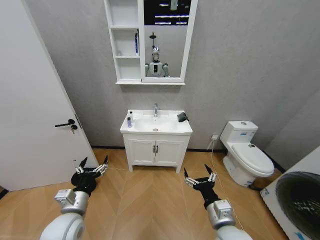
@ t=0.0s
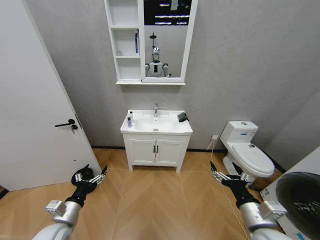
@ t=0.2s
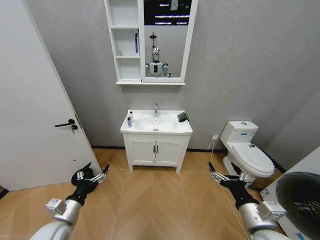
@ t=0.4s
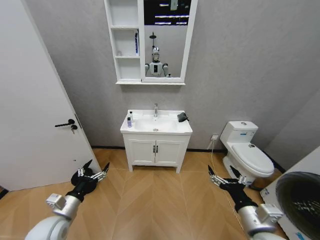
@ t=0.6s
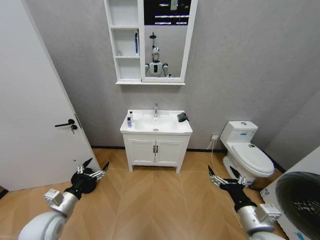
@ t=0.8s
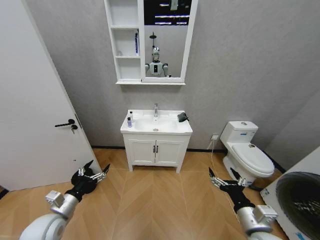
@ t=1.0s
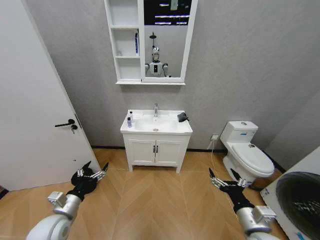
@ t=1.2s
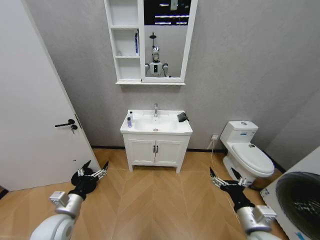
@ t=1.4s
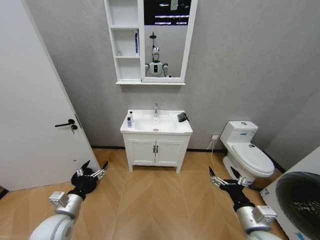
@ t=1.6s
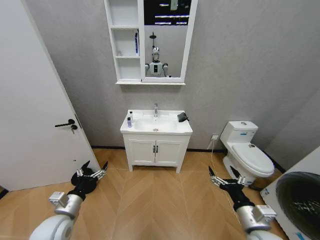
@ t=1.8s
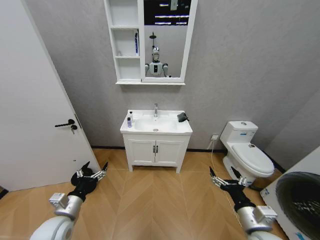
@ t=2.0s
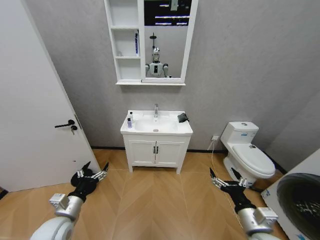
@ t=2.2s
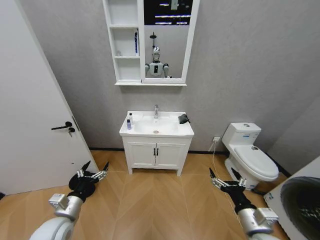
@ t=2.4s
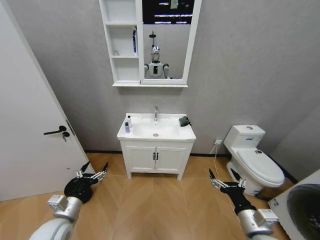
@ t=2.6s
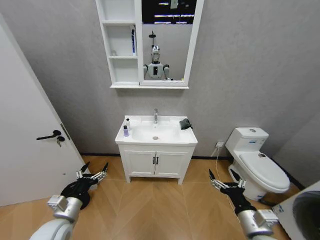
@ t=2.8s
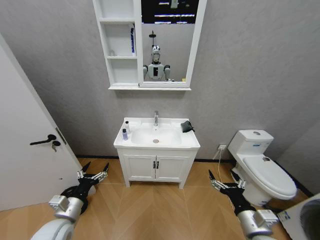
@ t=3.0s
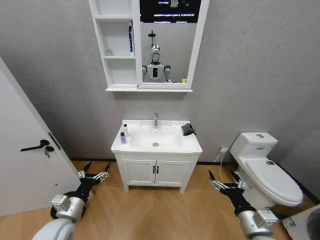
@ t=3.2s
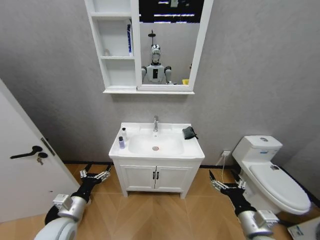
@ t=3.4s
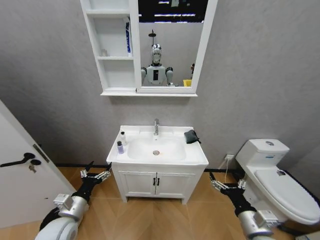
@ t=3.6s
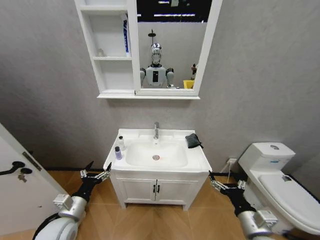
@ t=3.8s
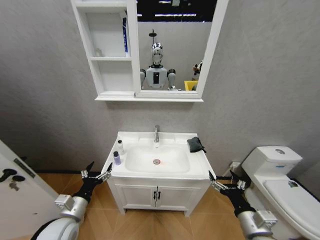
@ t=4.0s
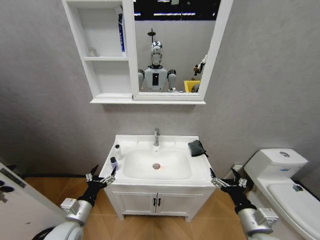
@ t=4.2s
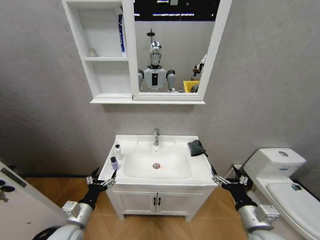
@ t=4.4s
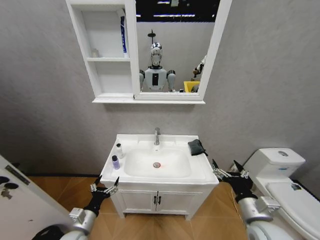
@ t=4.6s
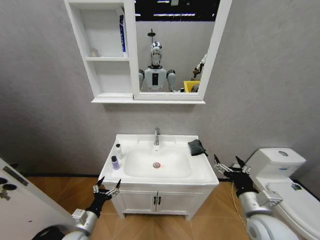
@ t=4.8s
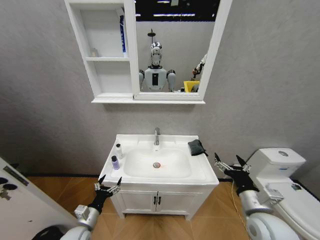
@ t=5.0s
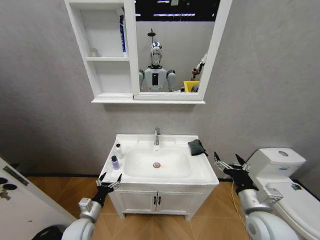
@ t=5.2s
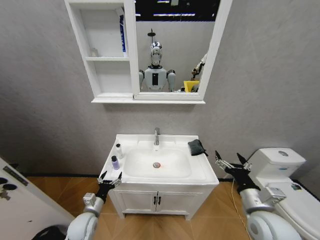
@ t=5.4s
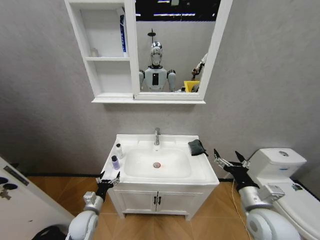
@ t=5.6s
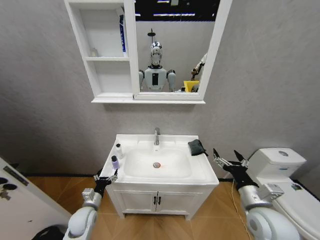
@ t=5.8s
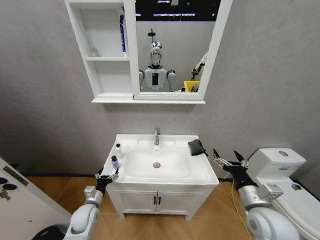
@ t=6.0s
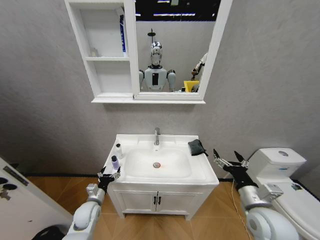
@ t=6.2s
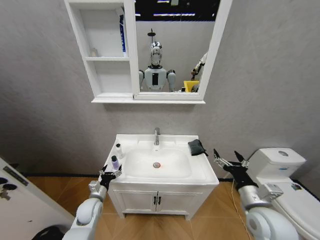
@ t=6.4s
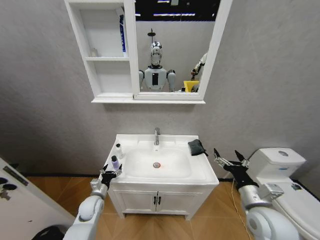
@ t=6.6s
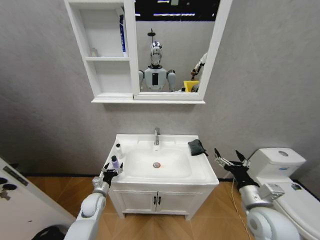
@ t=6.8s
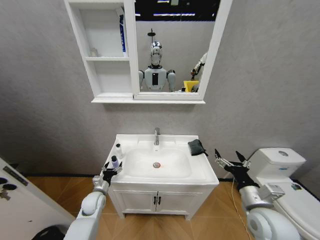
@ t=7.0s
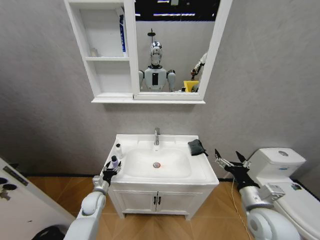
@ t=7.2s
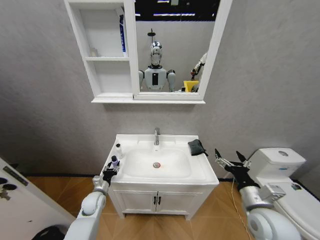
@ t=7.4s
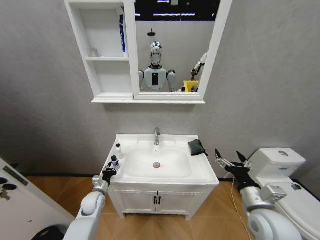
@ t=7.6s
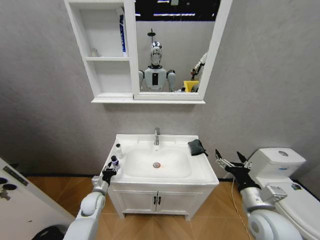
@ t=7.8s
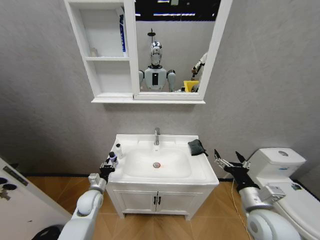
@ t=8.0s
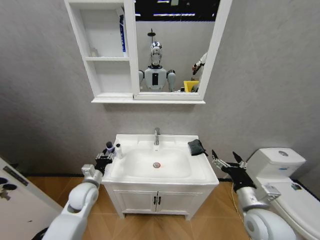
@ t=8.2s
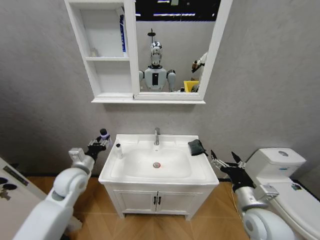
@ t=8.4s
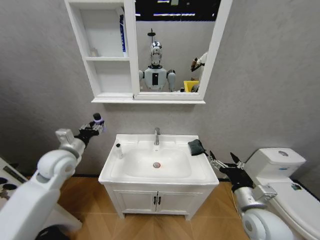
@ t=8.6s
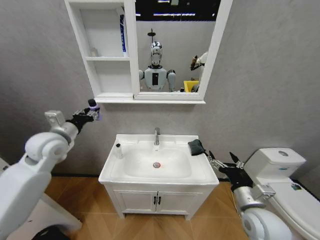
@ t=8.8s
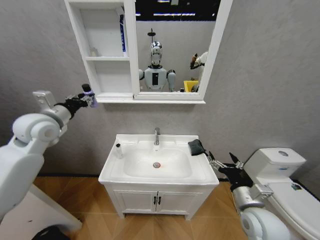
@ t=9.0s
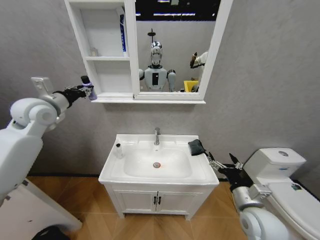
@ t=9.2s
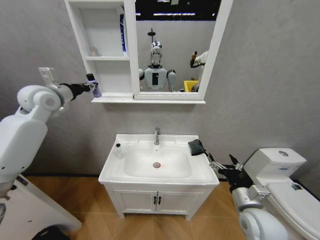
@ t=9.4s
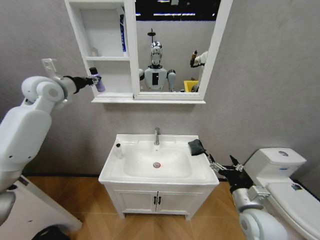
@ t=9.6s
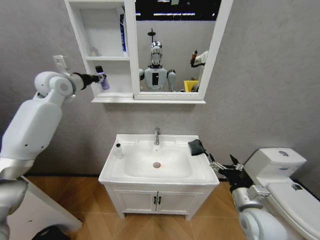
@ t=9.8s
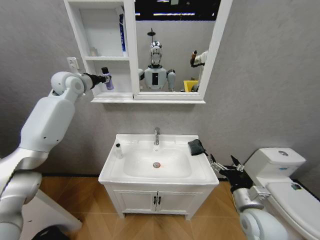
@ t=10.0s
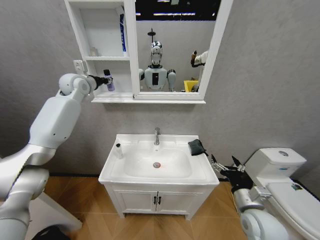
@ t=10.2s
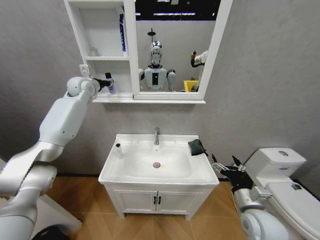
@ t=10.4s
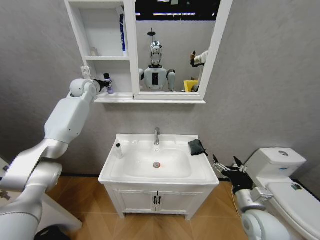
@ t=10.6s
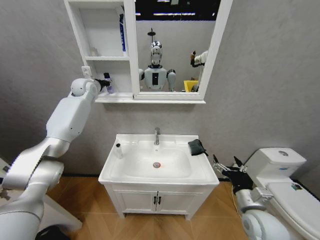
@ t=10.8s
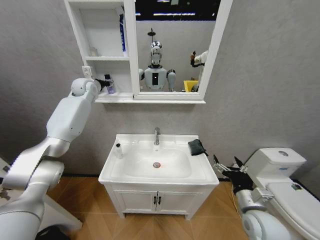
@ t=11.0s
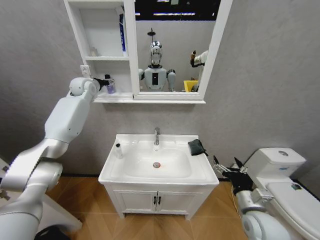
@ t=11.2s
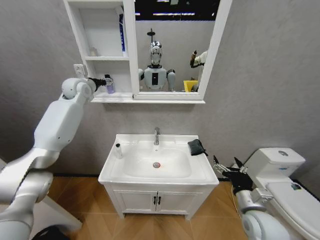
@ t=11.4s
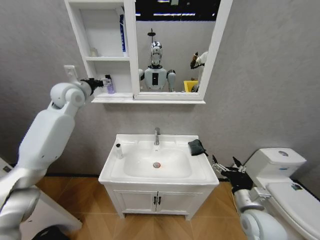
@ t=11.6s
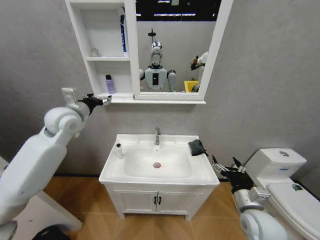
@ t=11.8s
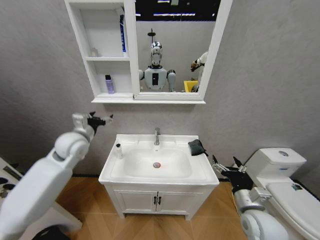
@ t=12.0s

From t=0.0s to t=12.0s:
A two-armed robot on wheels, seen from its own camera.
Task of the whole recording: Move facial cleanser and shampoo from washbasin to cabinet, then wipe washbasin with towel.
From t=4.4s to t=6.0s: The right gripper shifts by about 5 cm. The left gripper shifts approximately 10 cm forward and downward.
From t=6.0s to t=7.6s: The left gripper goes some 5 cm forward, and closes up.
From t=7.6s to t=9.0s: The left gripper heads upward, covering roughly 40 cm.
From t=9.0s to t=10.4s: The left gripper moves forward, some 20 cm.
From t=10.4s to t=12.0s: The left gripper is displaced backward and downward by some 25 cm, and opens.

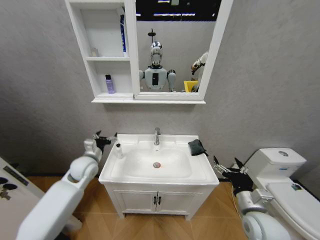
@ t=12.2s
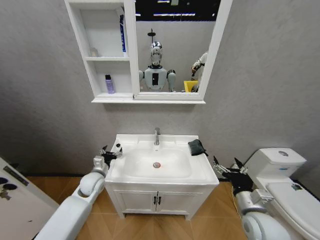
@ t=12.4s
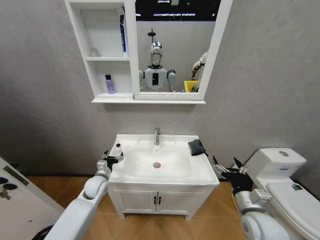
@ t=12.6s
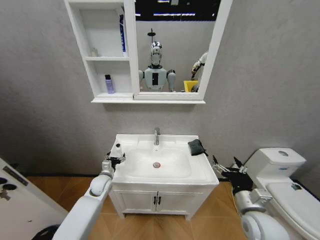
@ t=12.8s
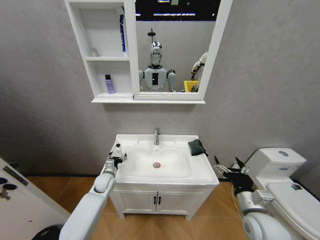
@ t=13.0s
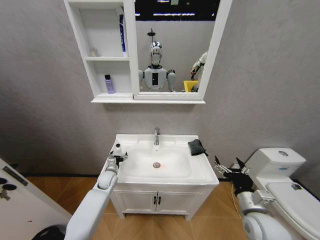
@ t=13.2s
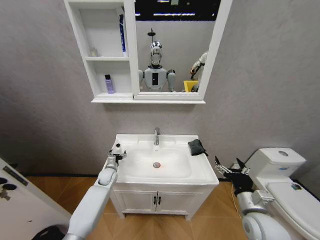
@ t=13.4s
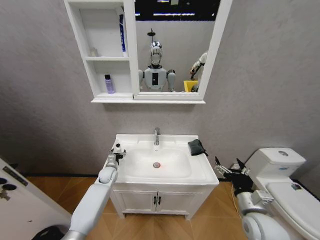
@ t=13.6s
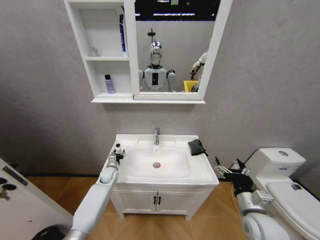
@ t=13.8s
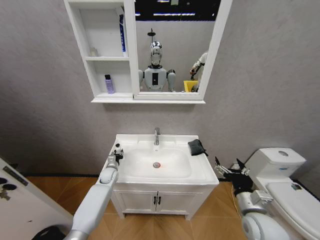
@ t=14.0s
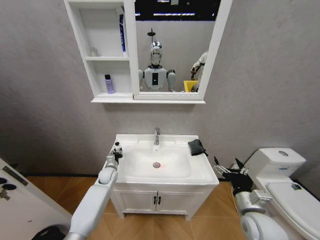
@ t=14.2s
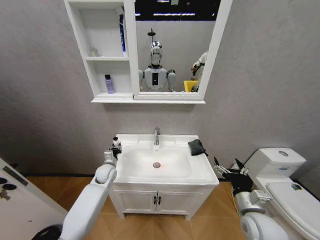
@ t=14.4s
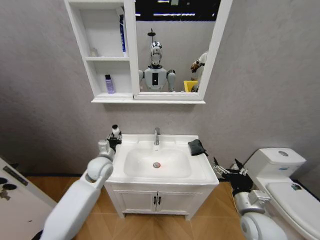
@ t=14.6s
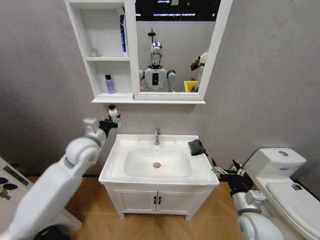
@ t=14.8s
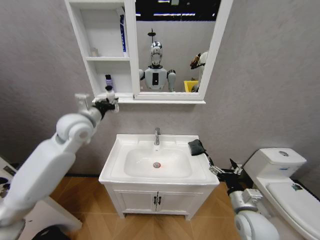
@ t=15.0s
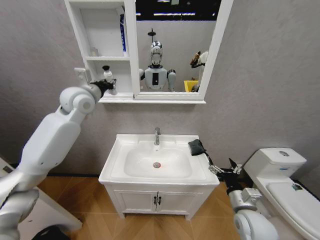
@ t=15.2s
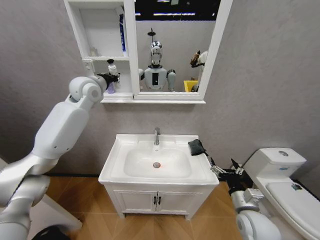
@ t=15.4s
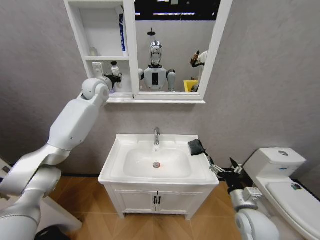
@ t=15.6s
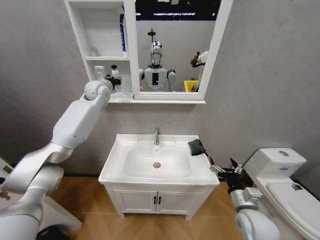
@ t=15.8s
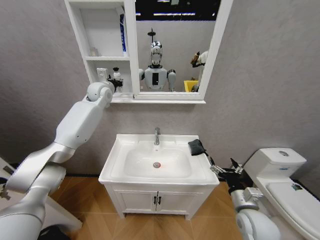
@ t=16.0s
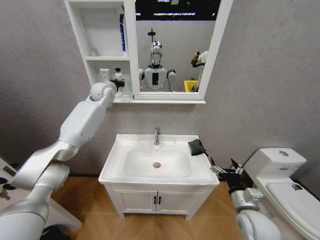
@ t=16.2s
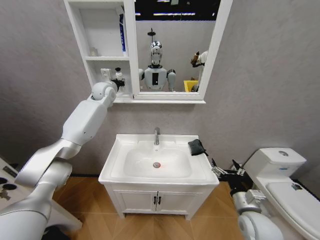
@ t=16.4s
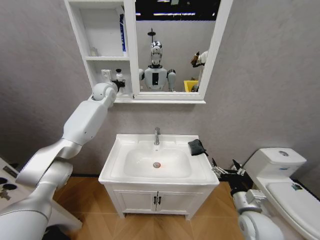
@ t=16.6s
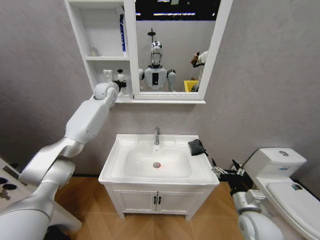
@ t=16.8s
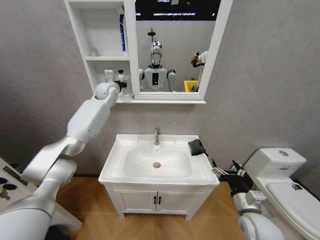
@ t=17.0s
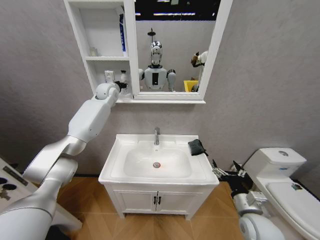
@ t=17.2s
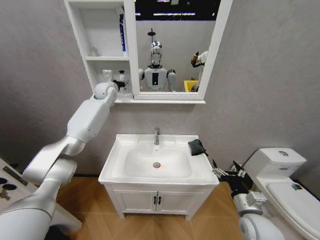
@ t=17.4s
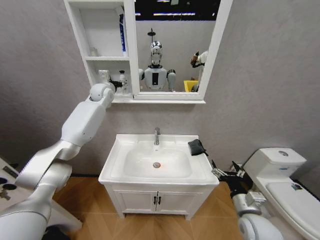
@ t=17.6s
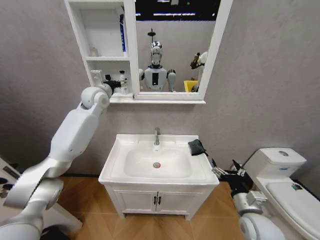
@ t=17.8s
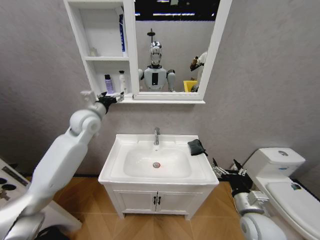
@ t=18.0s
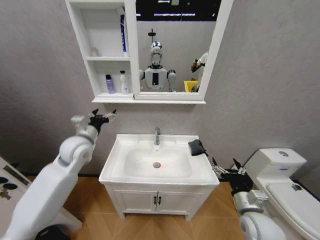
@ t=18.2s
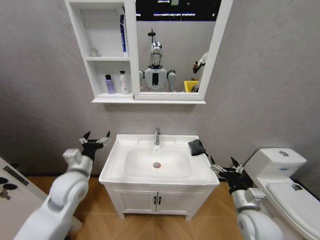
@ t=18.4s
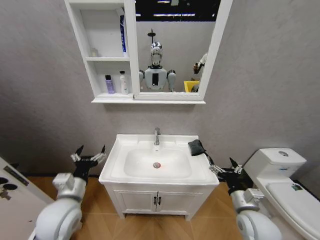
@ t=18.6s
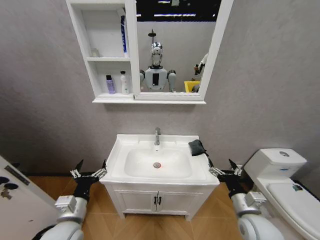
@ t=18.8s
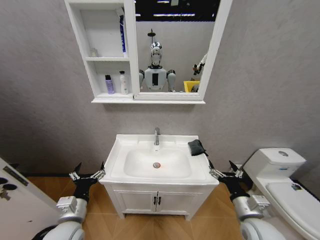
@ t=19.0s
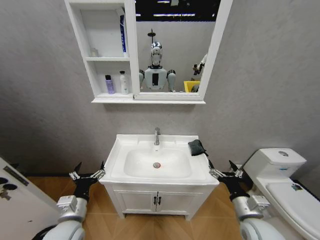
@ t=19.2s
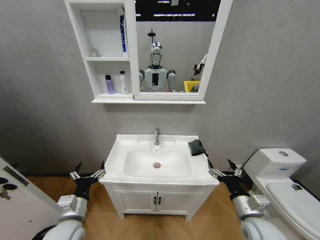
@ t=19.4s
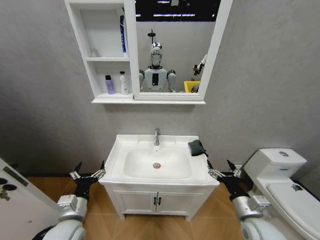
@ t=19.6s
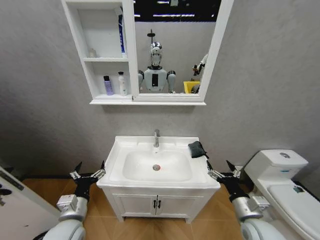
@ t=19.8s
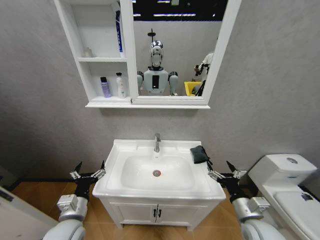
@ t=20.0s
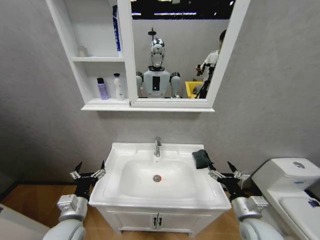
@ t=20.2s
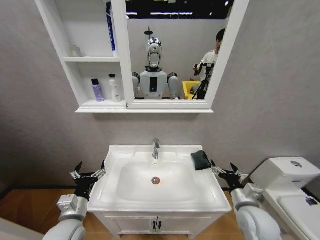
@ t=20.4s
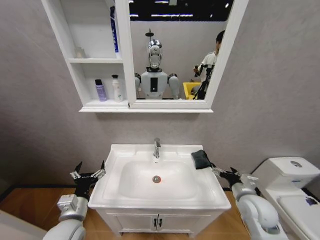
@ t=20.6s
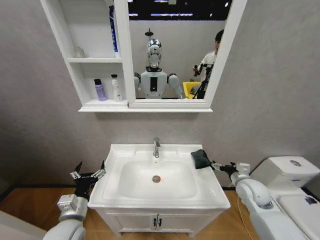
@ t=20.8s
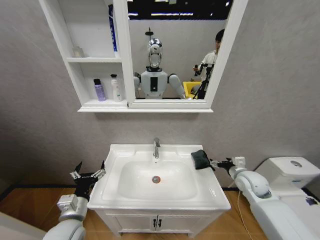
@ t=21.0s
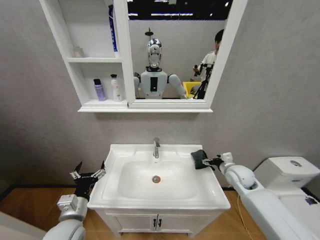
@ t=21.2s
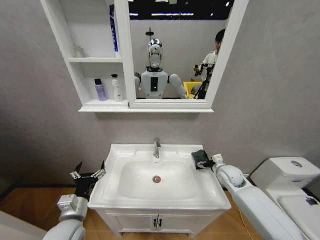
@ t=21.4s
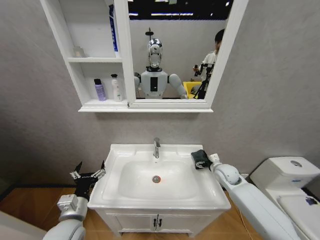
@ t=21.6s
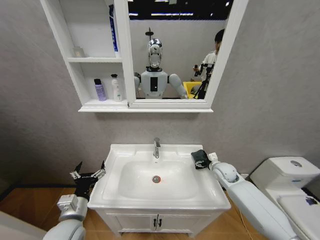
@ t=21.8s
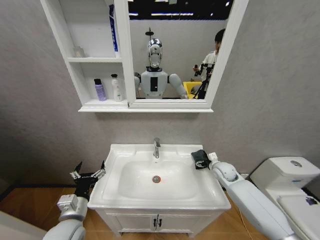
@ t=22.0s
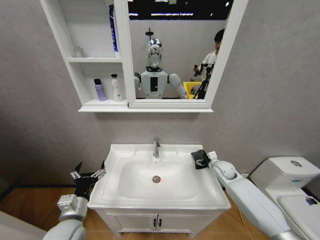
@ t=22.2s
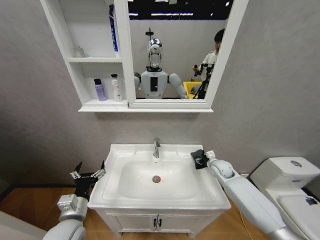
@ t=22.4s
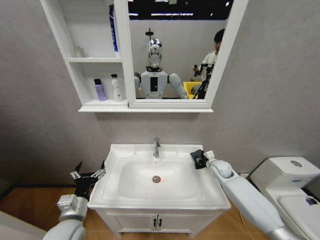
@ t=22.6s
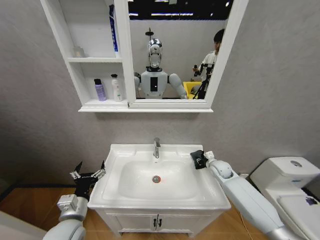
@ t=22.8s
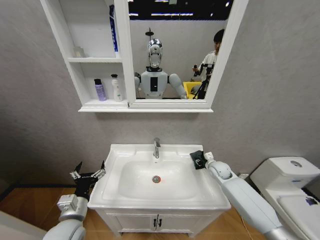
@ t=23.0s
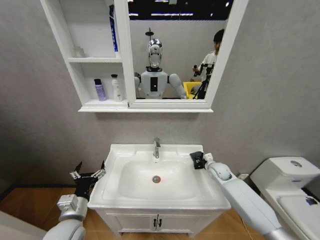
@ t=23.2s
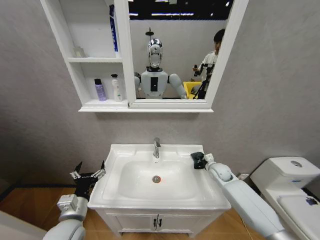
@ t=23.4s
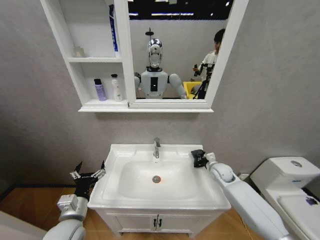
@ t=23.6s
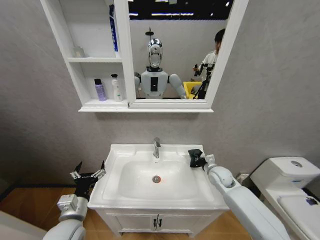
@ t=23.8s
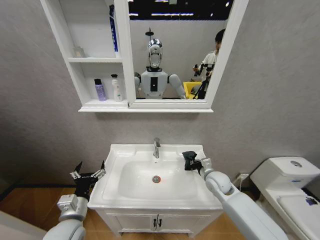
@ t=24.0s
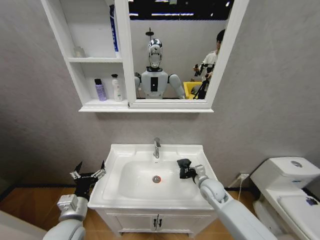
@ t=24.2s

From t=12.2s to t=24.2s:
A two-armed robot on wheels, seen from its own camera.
Task of the whole recording: Move facial cleanser and shampoo from washbasin to cabinet, then wipe washbasin with towel.
From t=12.2s to t=13.8s: The left gripper moves downward and forward, some 20 cm, and closes up.
From t=13.8s to t=15.2s: The left gripper moves upward, about 40 cm, and closes its fingers.
From t=15.2s to t=16.6s: The left gripper shifts about 15 cm forward.
From t=16.6s to t=18.2s: The left gripper shifts some 30 cm backward and downward, and opens up.
From t=18.2s to t=19.8s: The left gripper shifts some 25 cm backward and downward.
From t=19.8s to t=21.2s: The right gripper travels forward by about 20 cm.
From t=21.2s to t=22.6s: The right gripper heads forward and downward, covering about 10 cm, and closes its fingers.
From t=22.6s to t=24.2s: The right gripper shifts some 15 cm backward and to the left, and closes its fingers.
